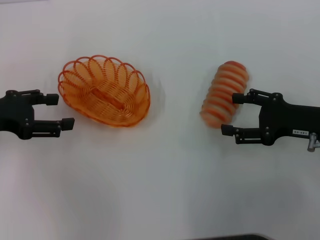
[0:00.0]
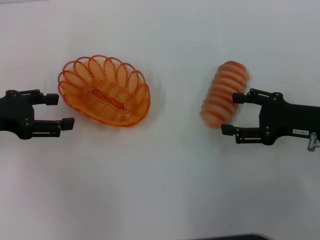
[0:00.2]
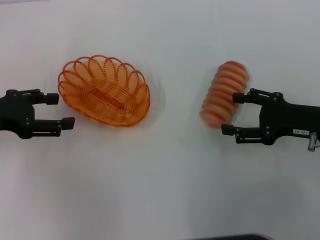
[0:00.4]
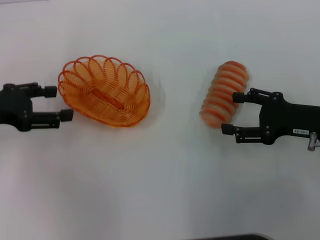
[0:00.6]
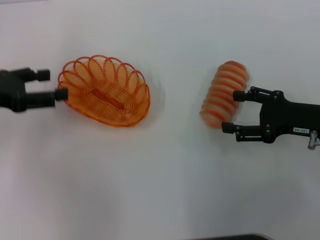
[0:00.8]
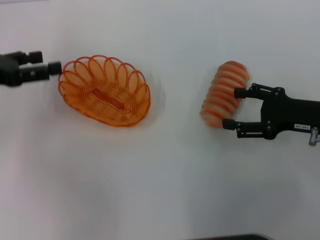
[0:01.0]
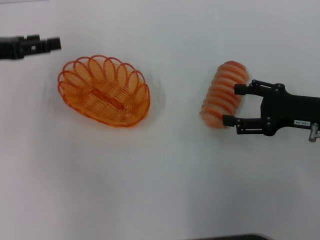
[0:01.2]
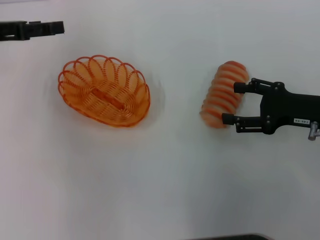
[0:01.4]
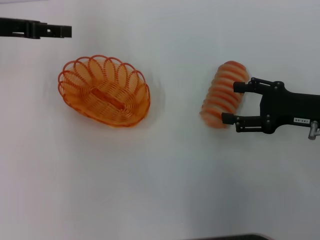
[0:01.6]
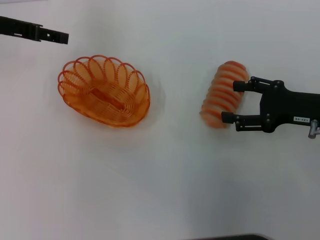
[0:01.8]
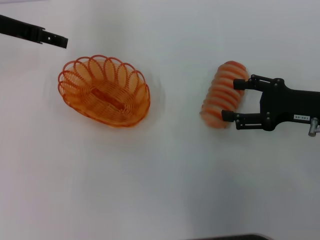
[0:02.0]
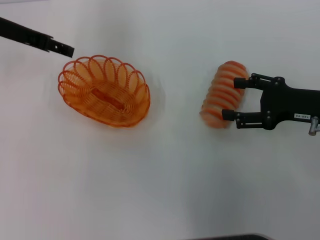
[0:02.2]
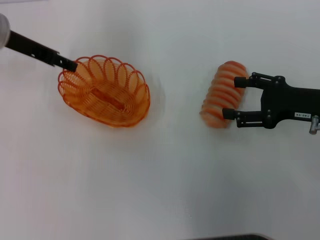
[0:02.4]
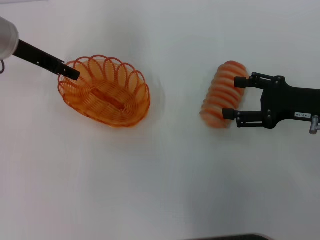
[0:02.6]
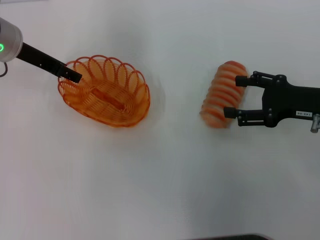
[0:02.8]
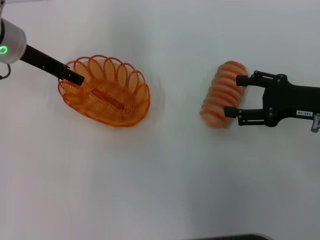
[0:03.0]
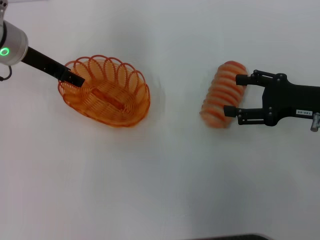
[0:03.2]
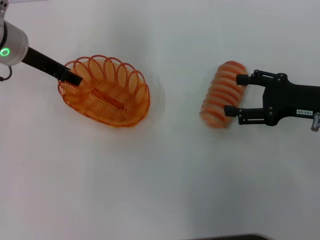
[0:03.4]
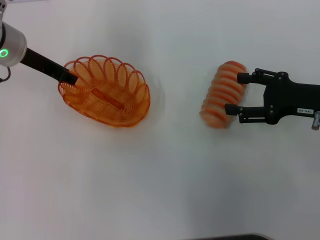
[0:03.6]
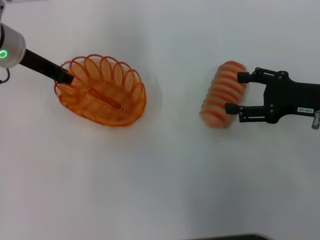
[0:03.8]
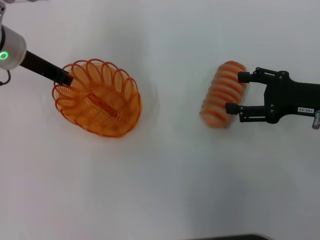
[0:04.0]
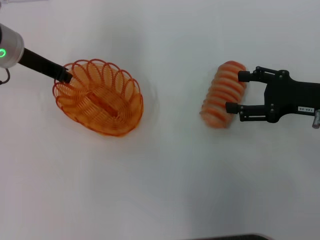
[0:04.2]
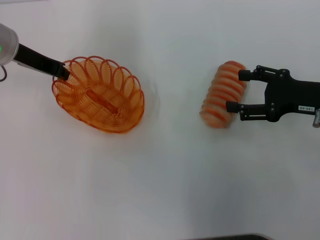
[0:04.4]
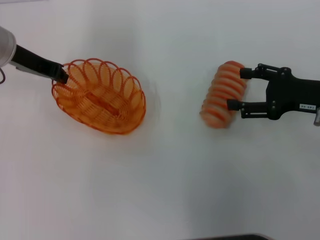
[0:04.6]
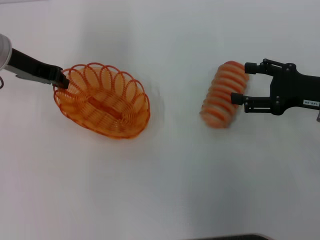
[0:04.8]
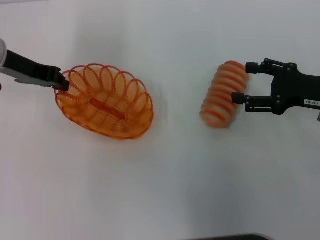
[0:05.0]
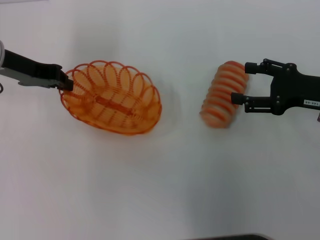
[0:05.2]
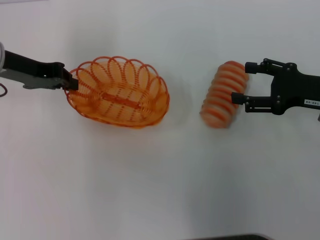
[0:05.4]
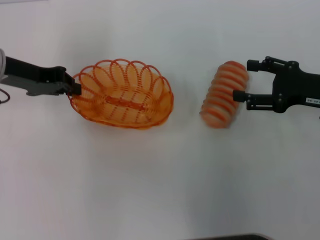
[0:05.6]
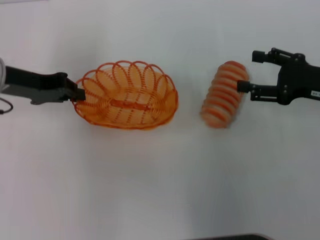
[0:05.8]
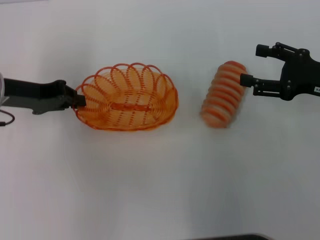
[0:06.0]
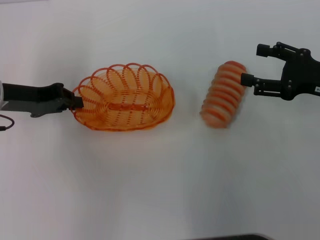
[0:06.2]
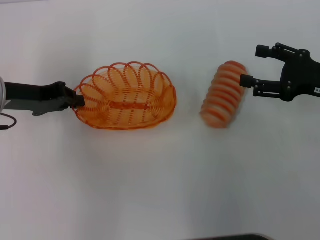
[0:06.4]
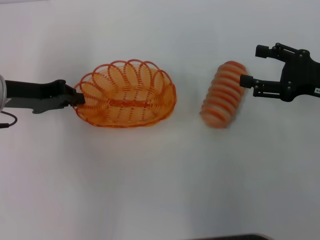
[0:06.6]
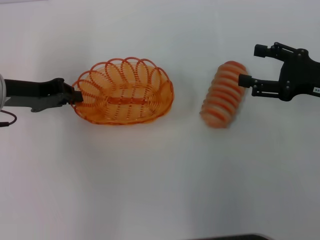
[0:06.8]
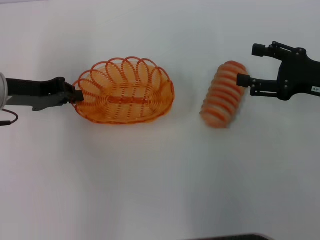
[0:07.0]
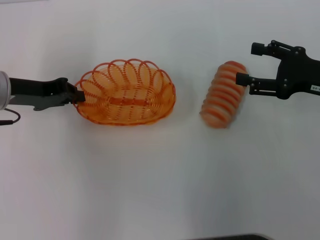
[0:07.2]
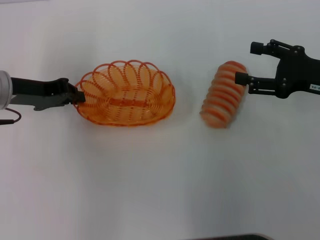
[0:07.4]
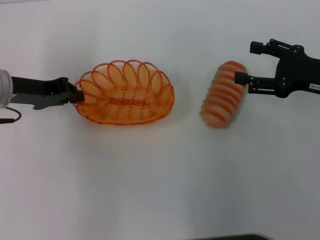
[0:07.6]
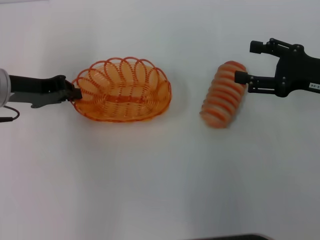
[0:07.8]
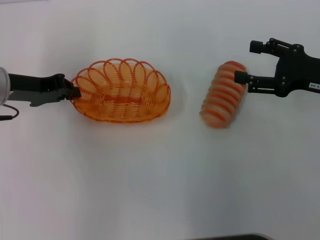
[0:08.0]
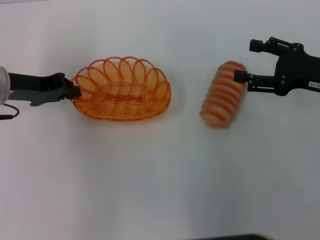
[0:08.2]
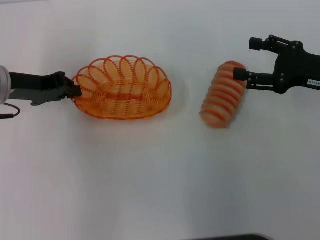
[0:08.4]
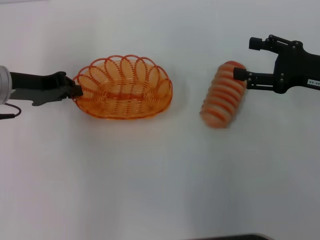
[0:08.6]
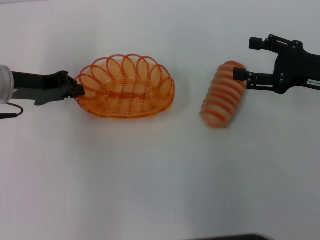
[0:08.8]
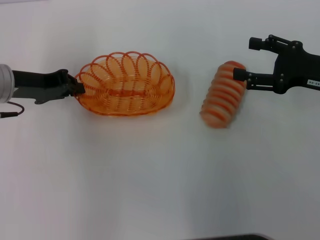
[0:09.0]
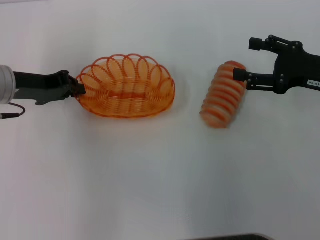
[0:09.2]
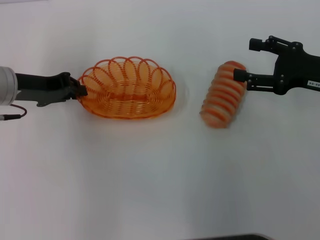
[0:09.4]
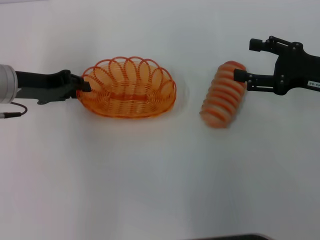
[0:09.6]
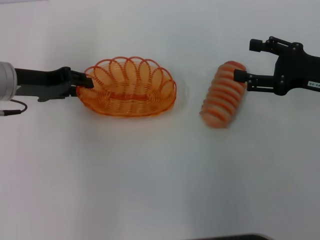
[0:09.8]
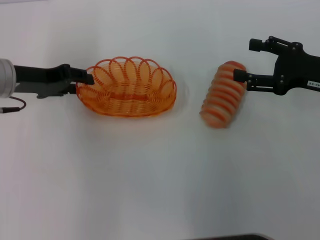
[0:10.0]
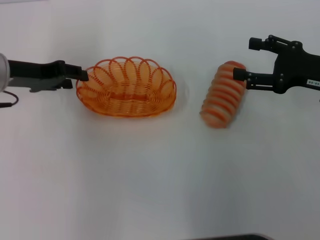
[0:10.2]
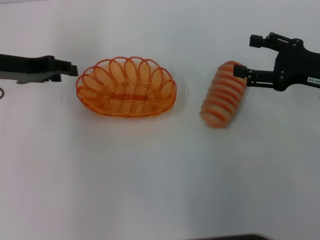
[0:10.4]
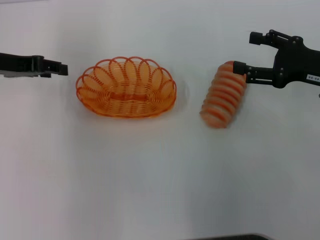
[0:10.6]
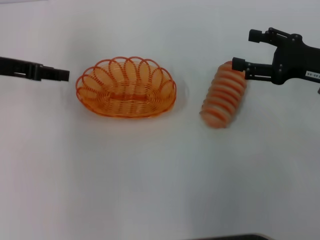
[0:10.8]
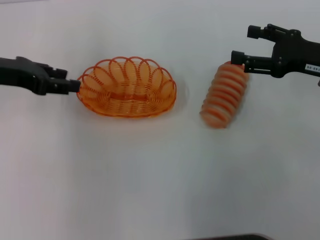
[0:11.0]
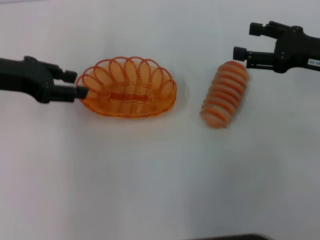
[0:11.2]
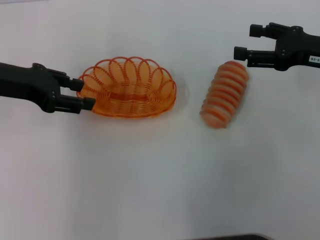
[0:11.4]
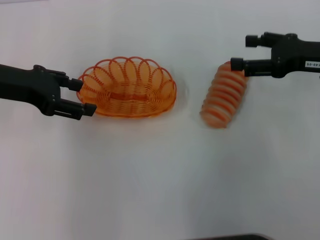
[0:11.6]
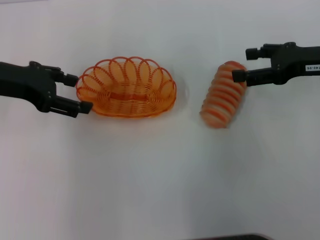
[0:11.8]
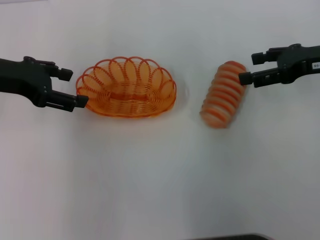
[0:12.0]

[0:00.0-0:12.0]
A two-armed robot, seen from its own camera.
Step, 0:00.0 to 0:05.6: Pick up the basket with the left gripper.
Step, 0:05.8 to 0:10.6: Place the basket in the center of view with the left gripper.
0:00.0 to 0:01.6: The left gripper is displaced forward and upward by some 10 cm.
0:01.6 to 0:03.0: The left gripper travels to the right by roughly 5 cm.
0:03.0 to 0:04.4: The left gripper closes its fingers.
0:04.4 to 0:06.0: The left gripper goes approximately 5 cm backward.
0:06.0 to 0:07.6: The grippers move only a little.
0:07.6 to 0:09.0: Both grippers stay about where they are.
0:09.0 to 0:10.4: The left gripper opens its fingers.
0:10.4 to 0:12.0: The right gripper moves approximately 5 cm; the left gripper opens its fingers.

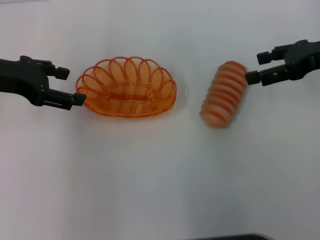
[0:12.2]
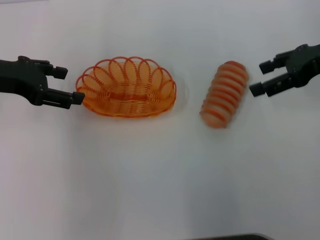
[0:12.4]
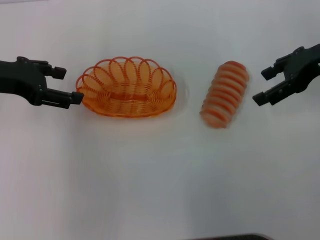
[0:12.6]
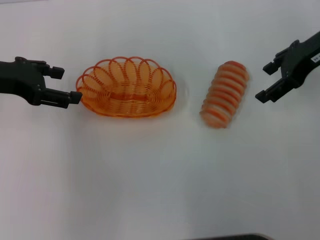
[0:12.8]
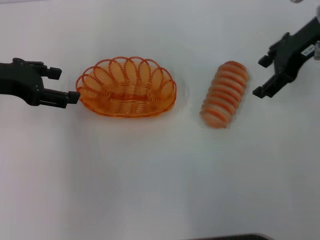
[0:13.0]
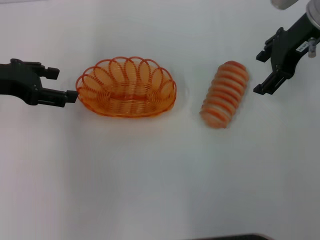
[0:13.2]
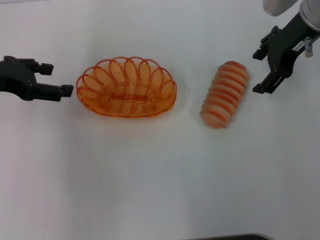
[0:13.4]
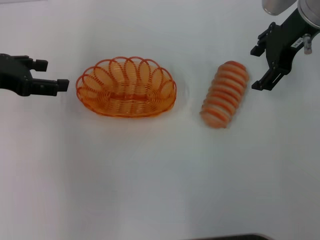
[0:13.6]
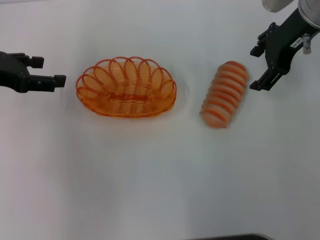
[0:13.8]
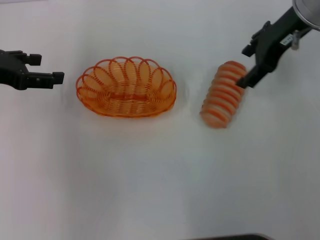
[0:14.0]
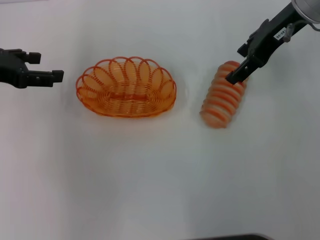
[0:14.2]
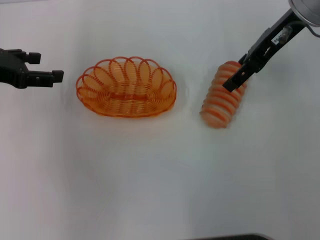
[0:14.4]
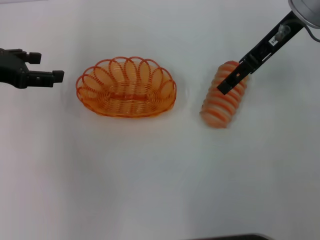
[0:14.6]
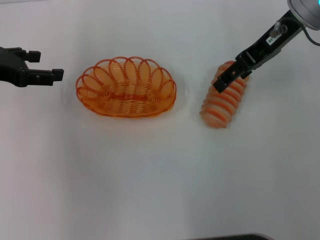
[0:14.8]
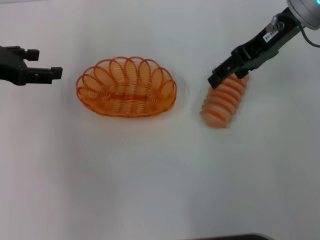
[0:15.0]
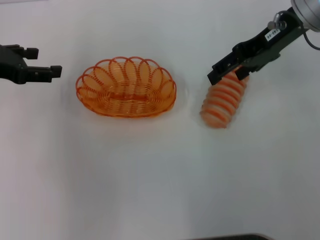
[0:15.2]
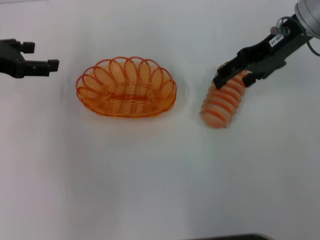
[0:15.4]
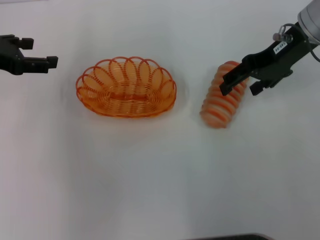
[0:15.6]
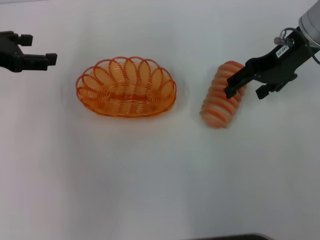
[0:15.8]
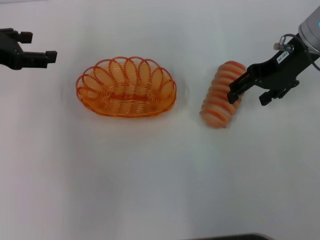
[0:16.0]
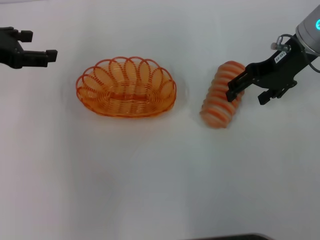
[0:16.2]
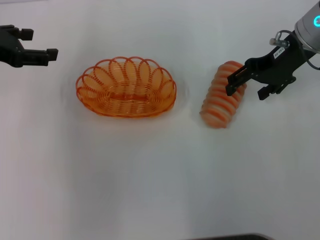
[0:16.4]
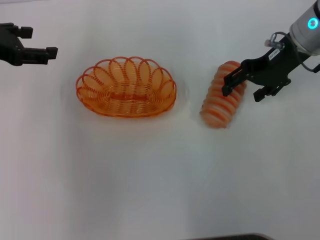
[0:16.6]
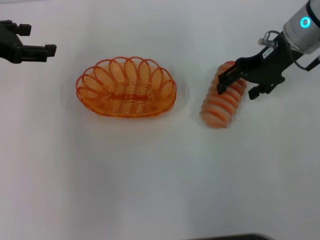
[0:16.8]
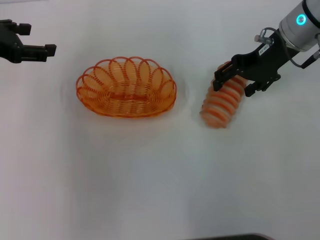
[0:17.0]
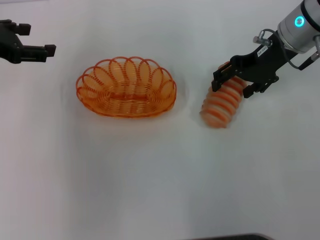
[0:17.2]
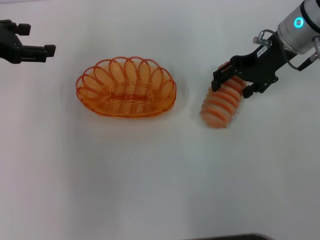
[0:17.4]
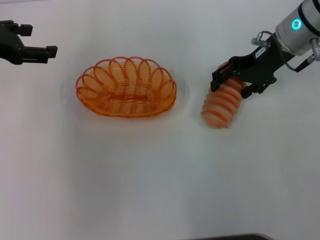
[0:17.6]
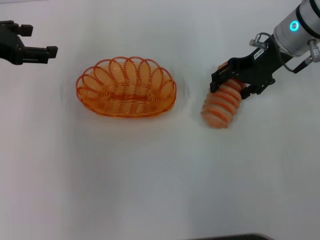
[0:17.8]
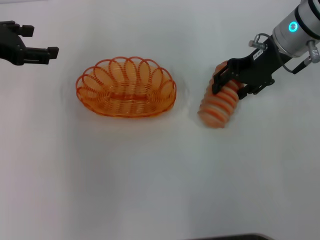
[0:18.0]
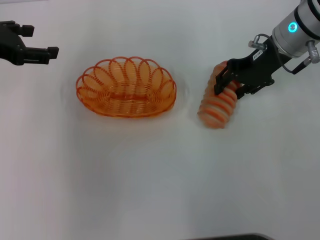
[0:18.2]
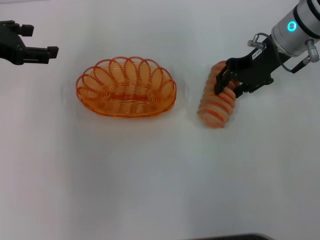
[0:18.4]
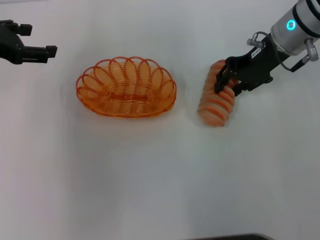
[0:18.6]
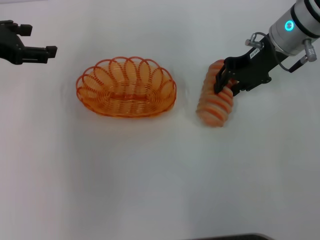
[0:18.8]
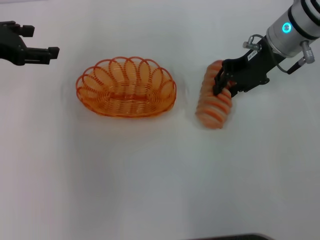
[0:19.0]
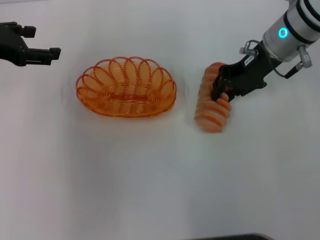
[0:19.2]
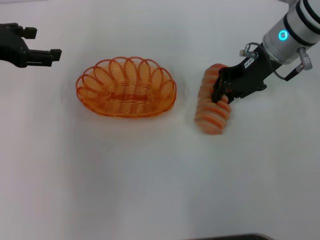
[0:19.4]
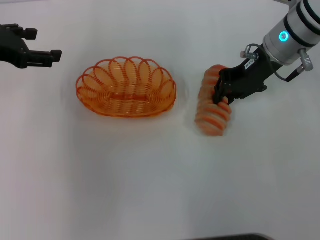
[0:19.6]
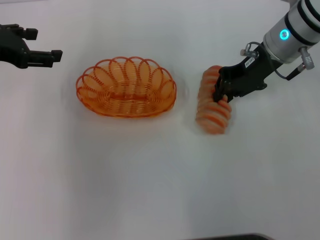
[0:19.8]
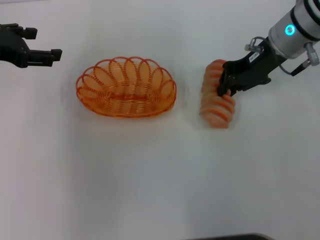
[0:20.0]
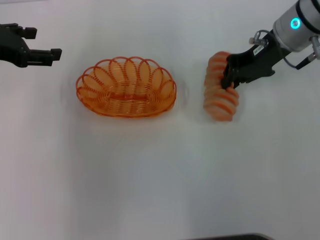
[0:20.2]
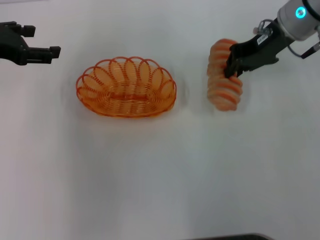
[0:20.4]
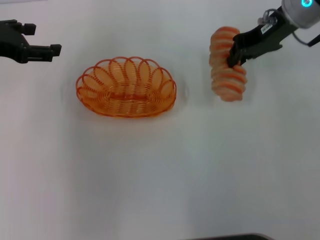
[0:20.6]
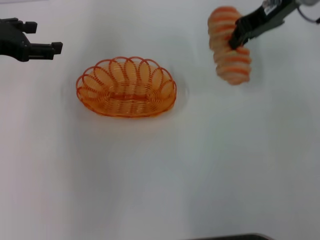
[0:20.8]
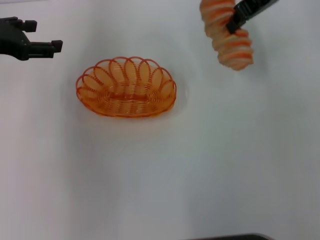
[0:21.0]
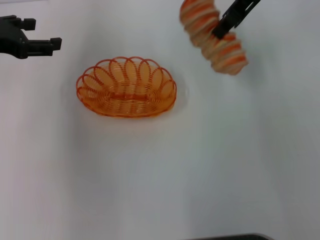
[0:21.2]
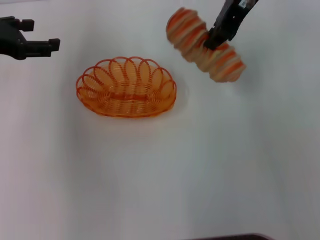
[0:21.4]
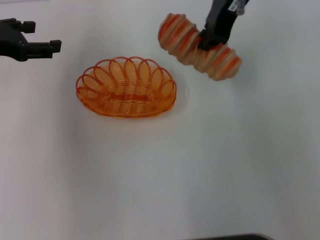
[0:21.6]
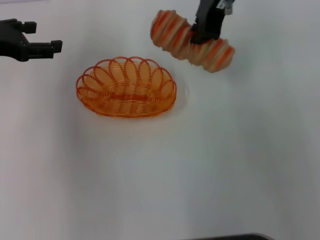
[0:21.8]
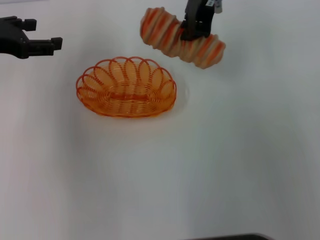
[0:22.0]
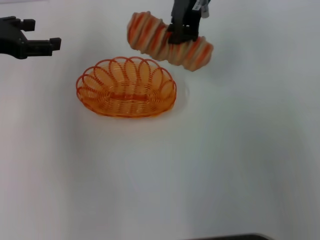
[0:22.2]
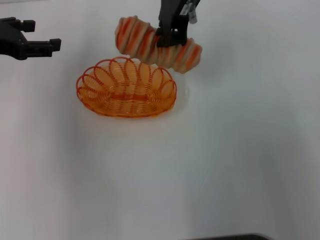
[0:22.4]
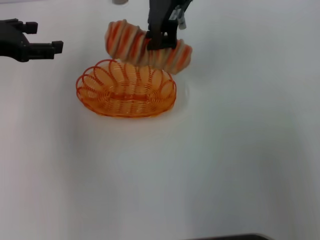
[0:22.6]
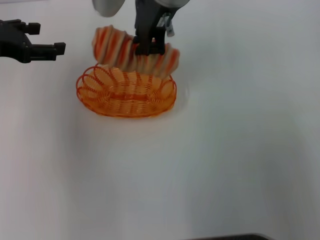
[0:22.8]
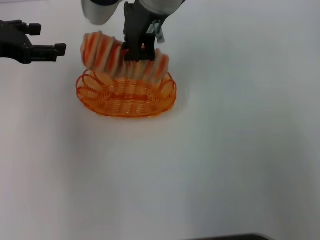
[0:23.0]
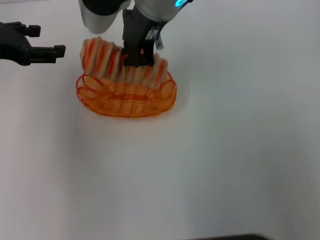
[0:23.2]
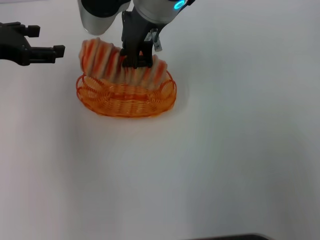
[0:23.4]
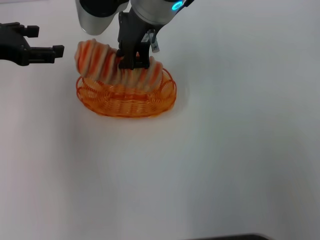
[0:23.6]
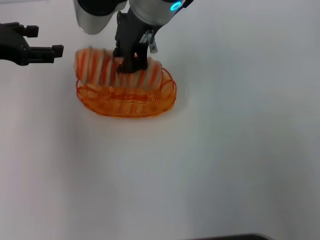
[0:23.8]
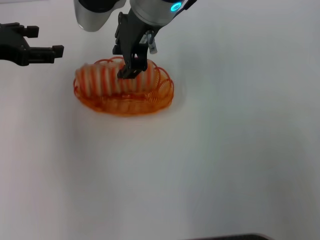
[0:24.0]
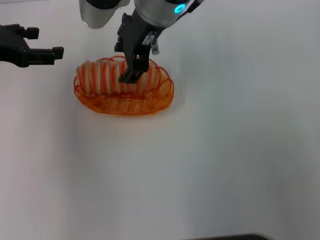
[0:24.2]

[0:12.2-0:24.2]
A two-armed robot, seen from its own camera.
Step, 0:12.2 to 0:20.6: Pick up the long bread with the right gripper.
0:12.2 to 0:13.8: The right gripper shifts about 10 cm to the left and forward.
0:16.6 to 0:18.2: The grippers make only small movements.
0:18.2 to 0:19.8: The right gripper closes.
0:19.8 to 0:21.2: The right gripper travels upward by some 10 cm.
0:21.2 to 0:22.6: The right gripper moves to the left, about 15 cm.
0:22.6 to 0:24.2: The right gripper opens.
